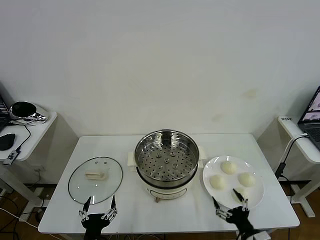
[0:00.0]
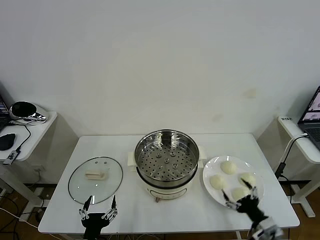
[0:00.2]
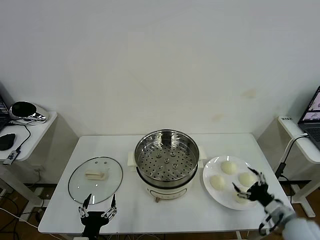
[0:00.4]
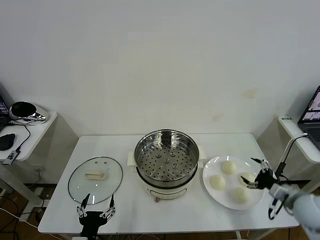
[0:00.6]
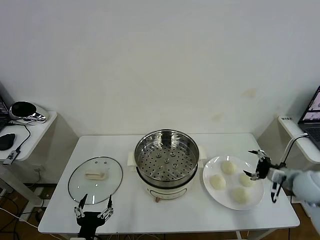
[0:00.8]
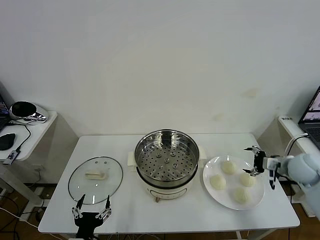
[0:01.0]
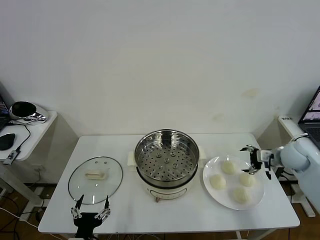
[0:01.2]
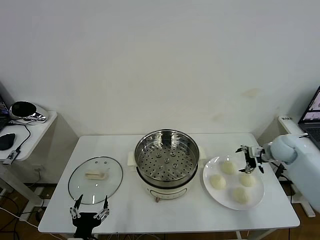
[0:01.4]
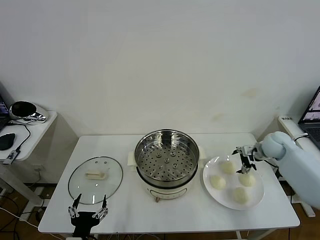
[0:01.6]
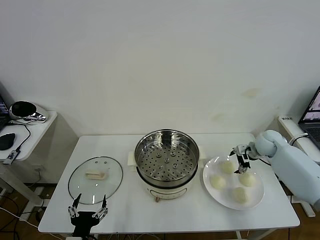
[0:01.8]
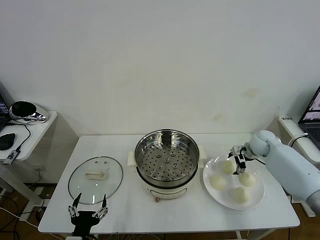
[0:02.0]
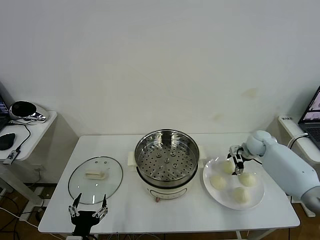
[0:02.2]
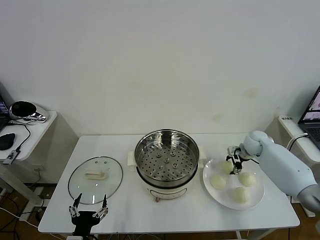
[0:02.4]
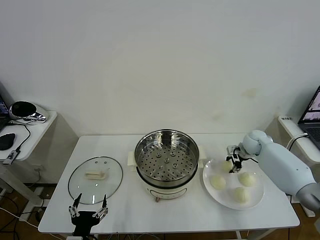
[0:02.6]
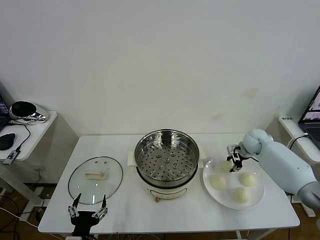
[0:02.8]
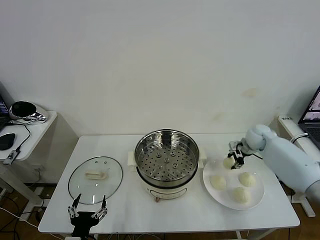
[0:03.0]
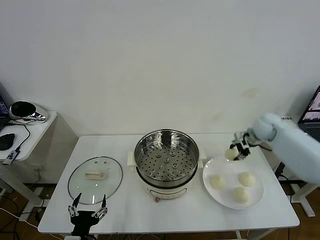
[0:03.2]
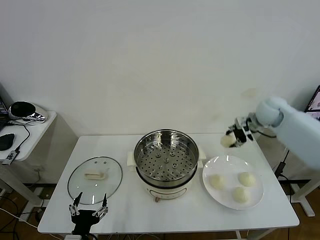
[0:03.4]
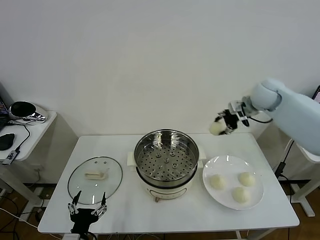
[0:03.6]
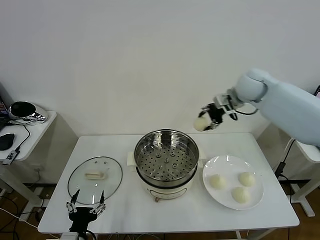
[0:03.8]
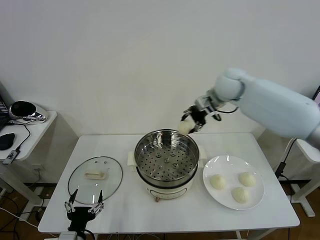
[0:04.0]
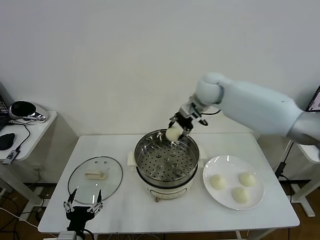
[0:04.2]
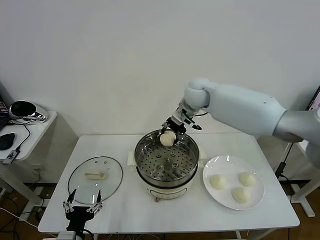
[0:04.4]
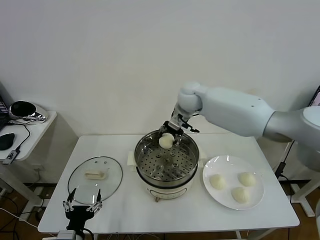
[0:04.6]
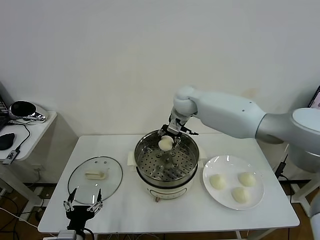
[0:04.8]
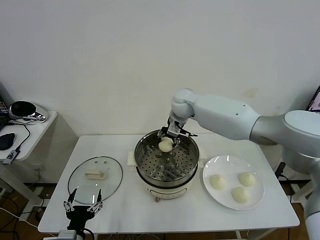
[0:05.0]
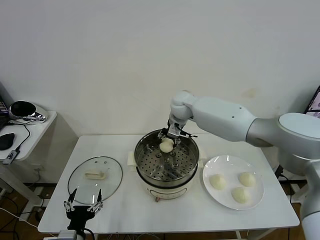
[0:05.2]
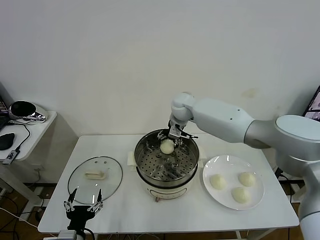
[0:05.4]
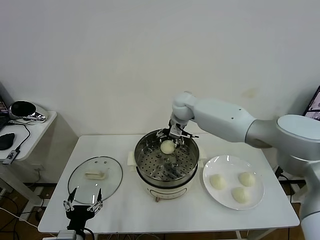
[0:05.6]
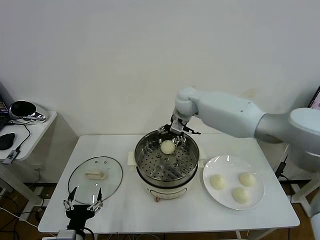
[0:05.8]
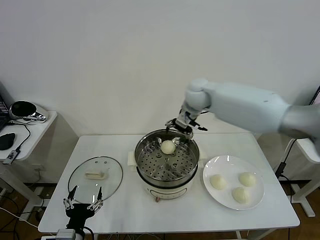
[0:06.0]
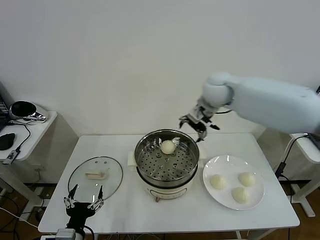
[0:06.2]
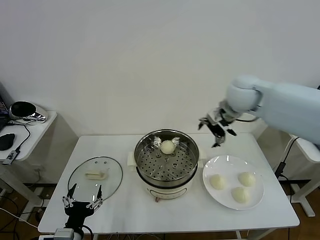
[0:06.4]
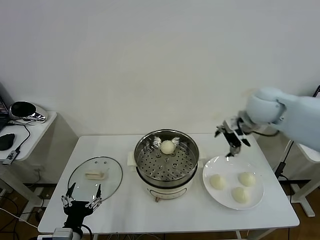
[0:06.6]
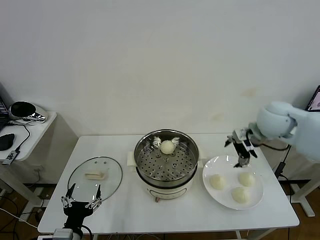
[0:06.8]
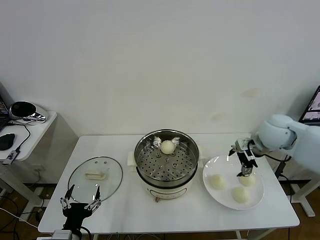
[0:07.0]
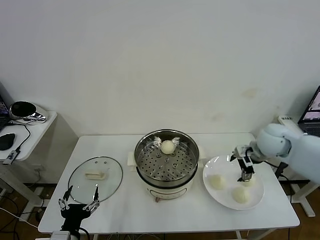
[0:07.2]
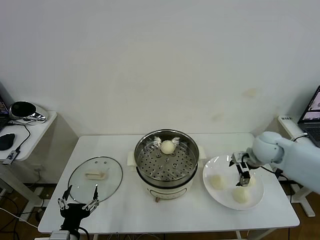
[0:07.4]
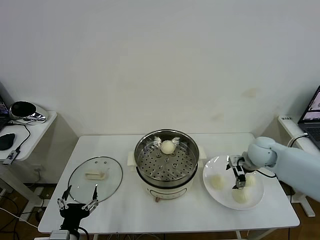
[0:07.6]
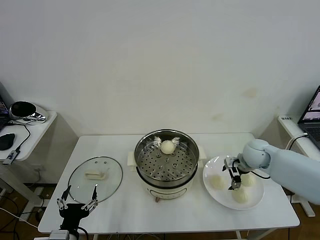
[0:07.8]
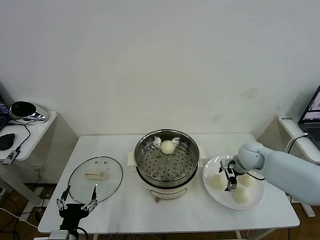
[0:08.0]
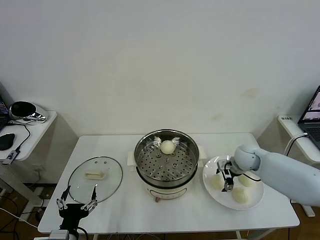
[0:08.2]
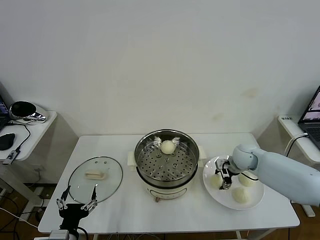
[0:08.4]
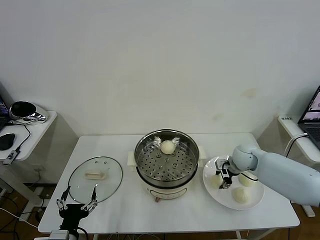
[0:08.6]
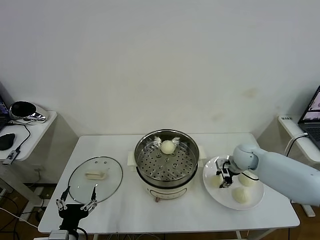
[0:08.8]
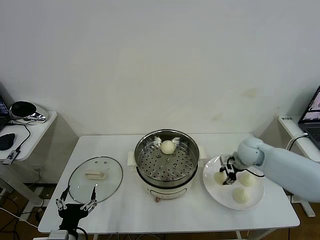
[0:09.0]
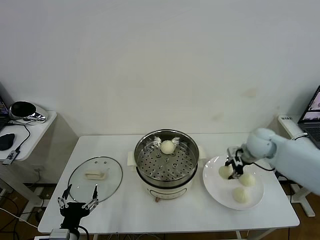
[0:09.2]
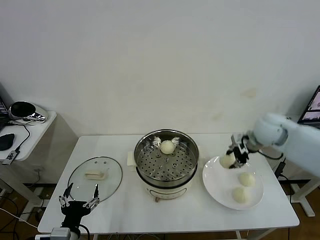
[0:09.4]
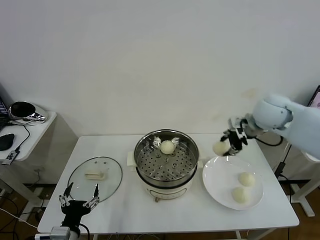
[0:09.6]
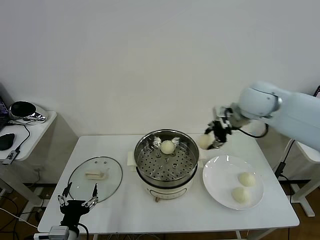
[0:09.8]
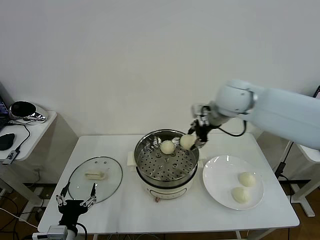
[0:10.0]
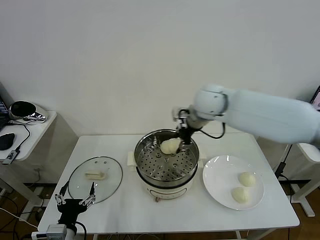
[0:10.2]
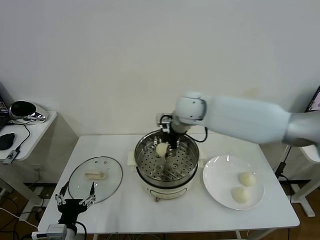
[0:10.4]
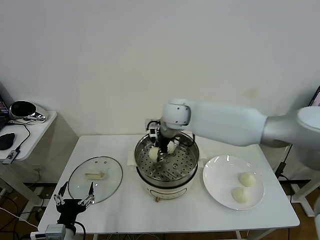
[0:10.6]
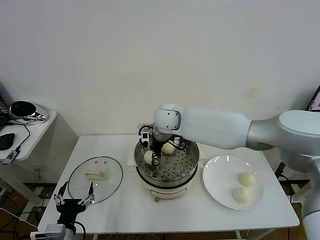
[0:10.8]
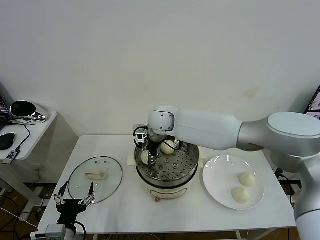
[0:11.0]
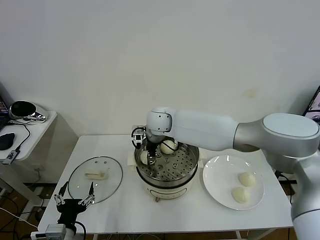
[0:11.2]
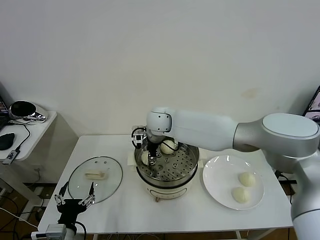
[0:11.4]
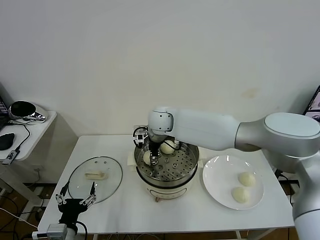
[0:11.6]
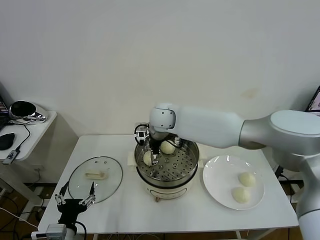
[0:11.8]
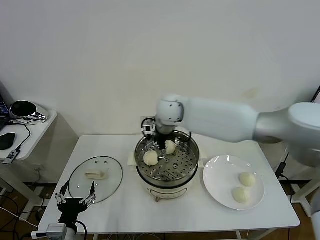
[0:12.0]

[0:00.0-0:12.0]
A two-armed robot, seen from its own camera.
Task of the whole recording: take steamed baozi put them in steamer then cover it.
Step, 0.0 to 2.4 s: Grasp the baozi in the plate with right gripper.
Step, 2.6 to 5.8 s: Place the baozi on the steamer with right gripper.
Step, 6.0 to 8.6 s: Grasp the baozi in the plate with right gripper.
Step, 8.8 to 11.8 s: Place the baozi on the steamer with right gripper.
1.6 to 3.0 s: The right gripper goes about 5 cm upward, and closes.
3.0 to 4.4 s: The right gripper moves to the left and upward, approximately 30 cm.
4.4 to 6.0 s: The right gripper moves to the right, approximately 5 cm, and opens.
6.0 to 7.6 s: The right gripper moves downward, to the right and backward, roughly 30 cm.
7.6 to 9.0 s: The right gripper closes up.
9.0 to 10.4 s: The right gripper travels to the left and upward by some 30 cm.
10.4 to 12.0 s: The right gripper opens its fingers.

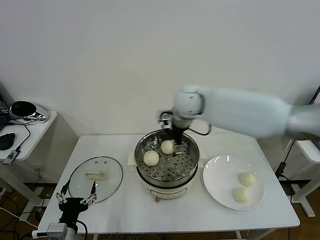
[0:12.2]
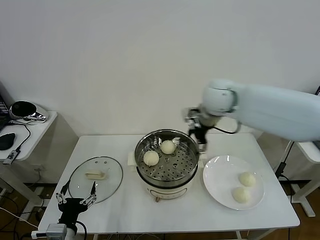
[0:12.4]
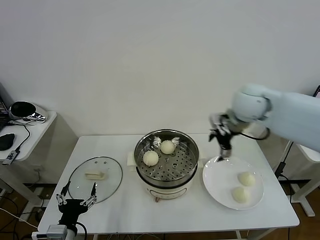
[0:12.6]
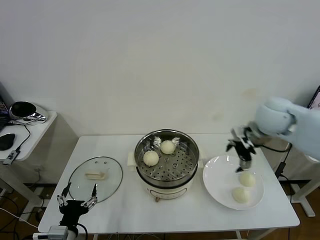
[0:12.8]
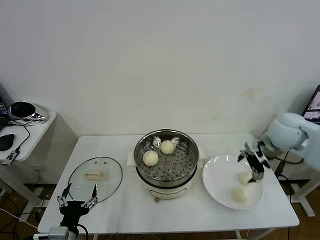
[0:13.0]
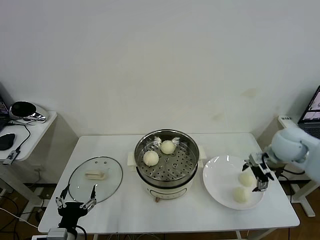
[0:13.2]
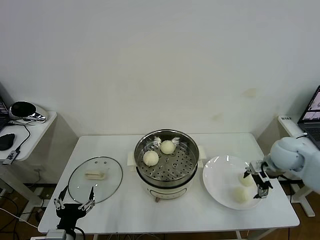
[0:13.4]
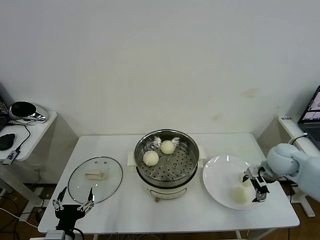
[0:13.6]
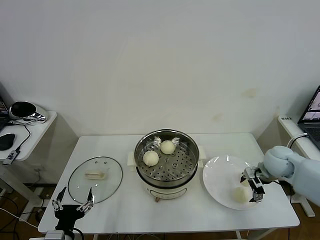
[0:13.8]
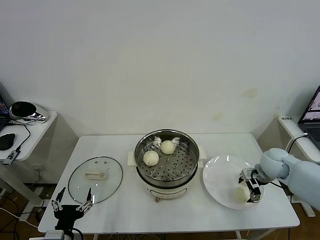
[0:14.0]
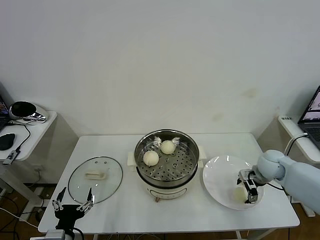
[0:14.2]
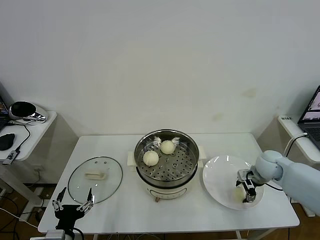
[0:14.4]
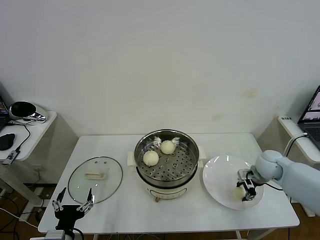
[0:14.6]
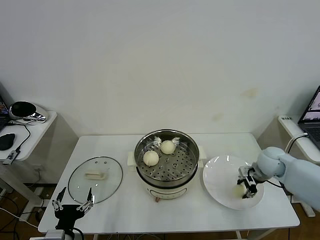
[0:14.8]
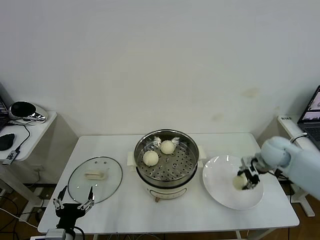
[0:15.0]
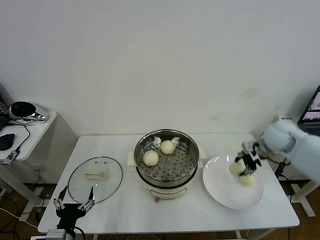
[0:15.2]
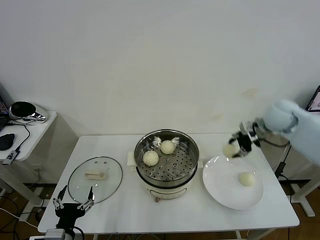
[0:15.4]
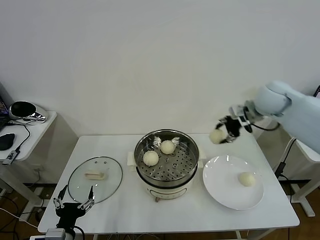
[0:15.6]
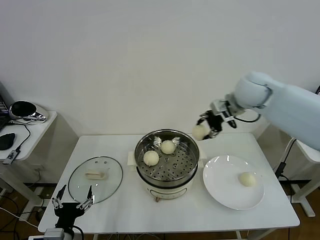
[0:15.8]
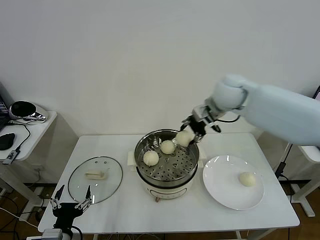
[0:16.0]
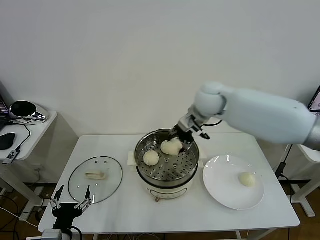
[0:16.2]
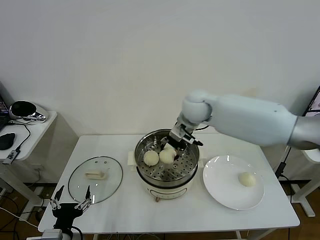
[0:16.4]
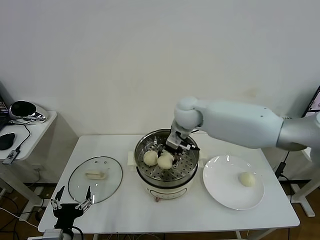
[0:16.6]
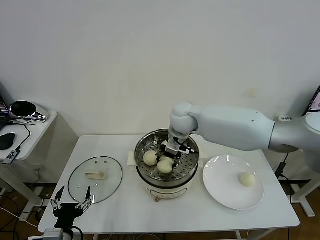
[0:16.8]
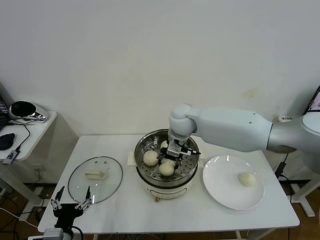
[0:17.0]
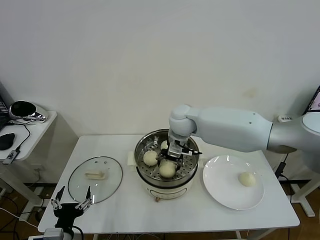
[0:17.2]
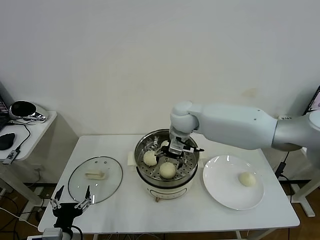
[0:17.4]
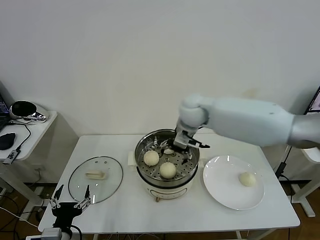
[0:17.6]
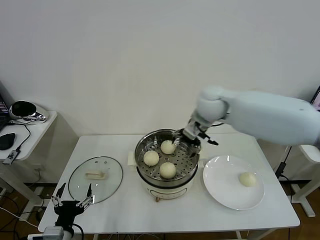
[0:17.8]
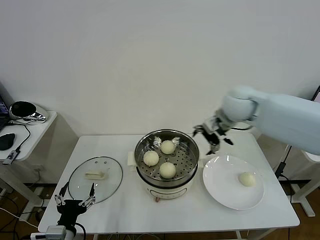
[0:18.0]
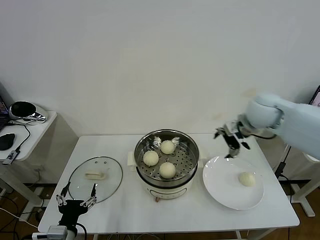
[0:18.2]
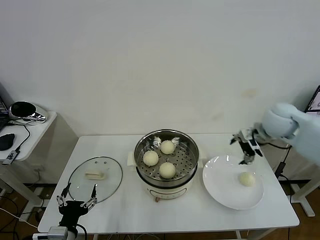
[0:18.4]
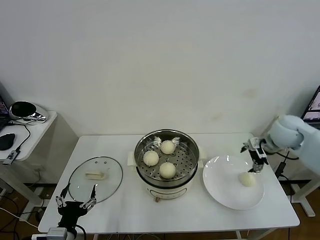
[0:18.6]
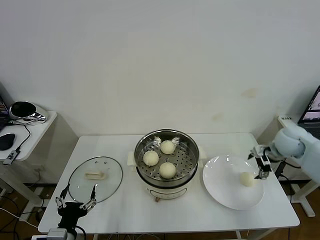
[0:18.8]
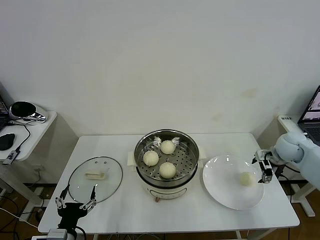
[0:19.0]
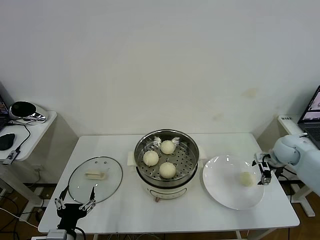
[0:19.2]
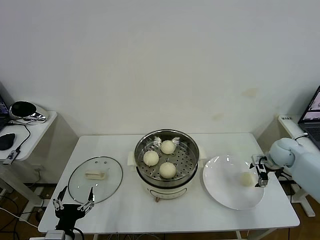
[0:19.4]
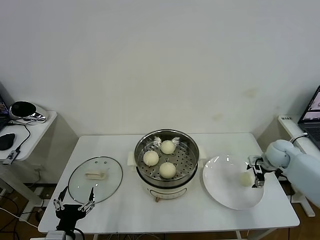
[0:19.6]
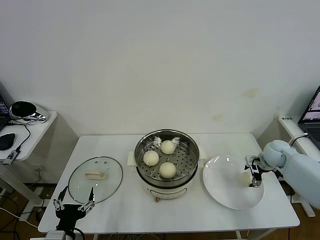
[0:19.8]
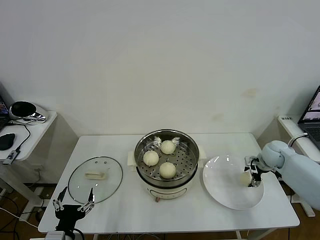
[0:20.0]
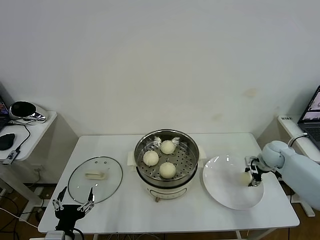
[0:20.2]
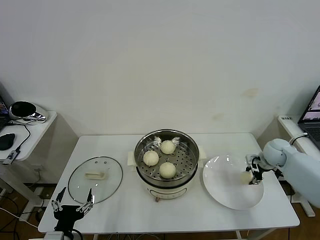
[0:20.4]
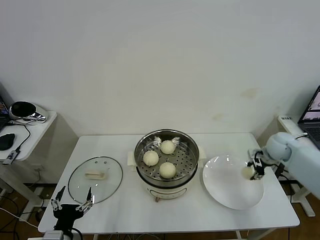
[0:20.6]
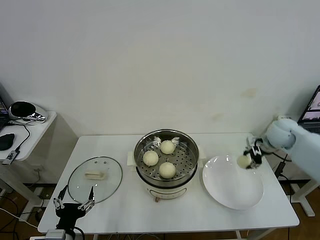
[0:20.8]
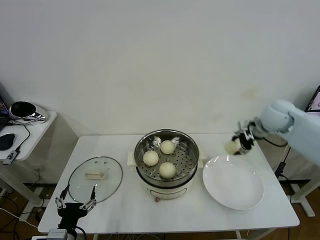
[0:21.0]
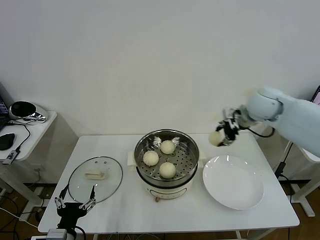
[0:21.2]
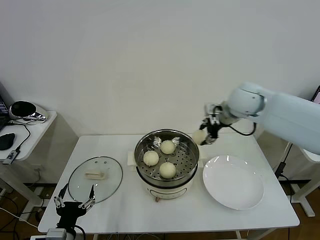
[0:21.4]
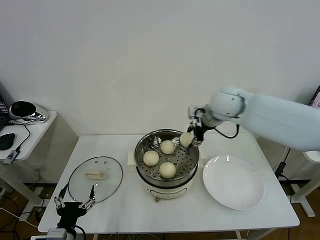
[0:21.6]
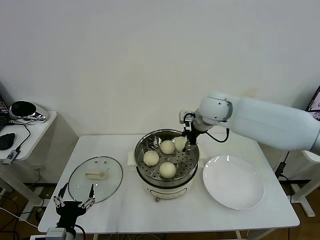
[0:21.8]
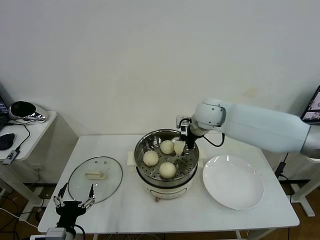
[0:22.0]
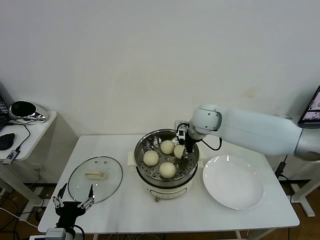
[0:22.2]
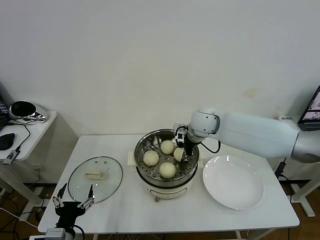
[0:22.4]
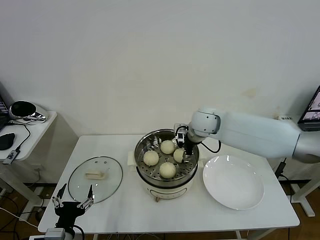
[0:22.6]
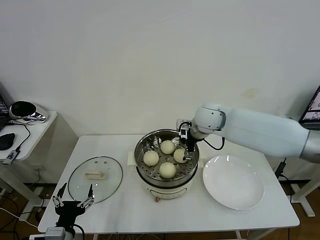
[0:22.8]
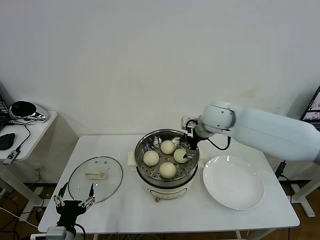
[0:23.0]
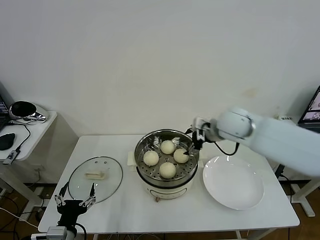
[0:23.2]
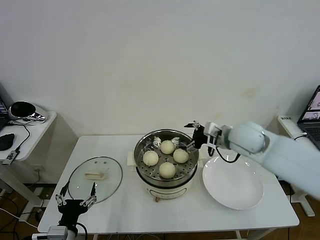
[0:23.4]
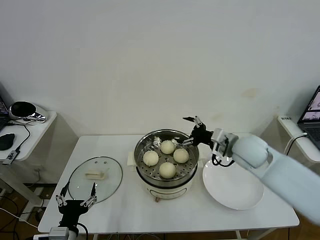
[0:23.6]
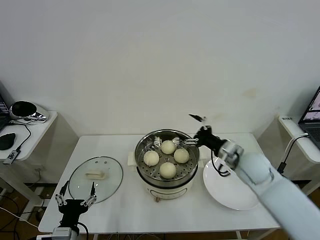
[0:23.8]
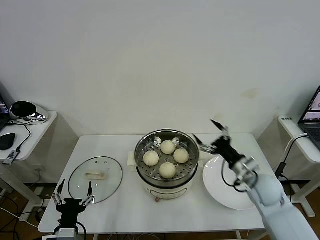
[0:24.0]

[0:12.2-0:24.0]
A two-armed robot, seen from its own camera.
Task of the whole recording: take steamed baozi put them in steamer then cover it.
Step, 12.2 to 14.6 s: Grasp the baozi in the plate with right gripper.
Step, 14.8 to 17.6 s: Place the baozi on the steamer with right gripper.
Step, 17.8 to 20.4 s: Grasp the baozi in the plate with right gripper.
Step, 20.6 to 22.8 s: Place the baozi on the steamer with right gripper.
12.2 to 13.6 s: The right gripper is displaced to the right and downward by roughly 35 cm.
13.6 to 15.2 s: The right gripper is displaced upward and forward by some 10 cm, and closes.
15.2 to 16.6 s: The right gripper heads to the left, covering roughly 30 cm.
16.6 to 18.2 s: The right gripper heads to the right, covering some 20 cm, and opens up.
18.2 to 19.6 s: The right gripper travels downward and to the right by roughly 25 cm.
19.6 to 21.0 s: The right gripper moves upward and to the left, some 20 cm, and closes up.
21.0 to 22.6 s: The right gripper is displaced to the left by approximately 20 cm, and opens up.
22.6 to 24.0 s: The right gripper goes about 25 cm backward, to the right and downward.
